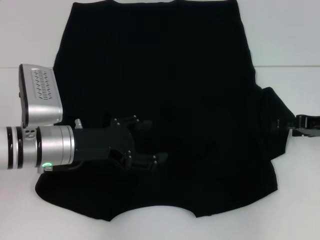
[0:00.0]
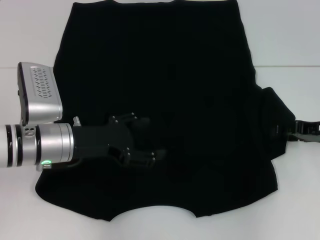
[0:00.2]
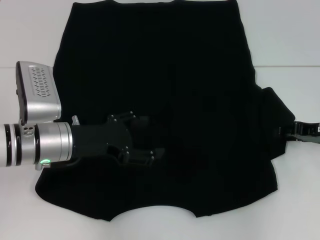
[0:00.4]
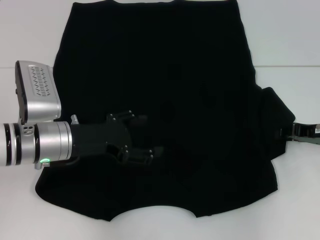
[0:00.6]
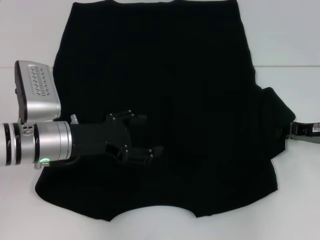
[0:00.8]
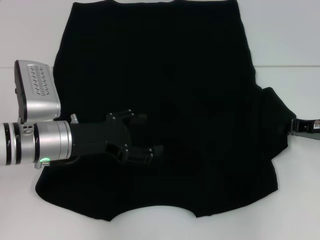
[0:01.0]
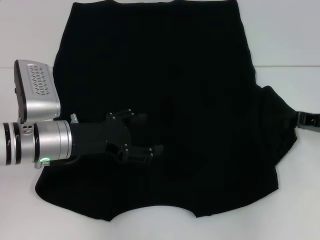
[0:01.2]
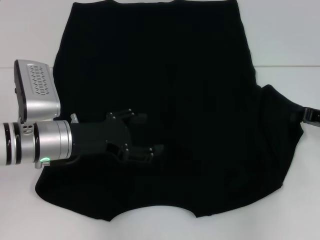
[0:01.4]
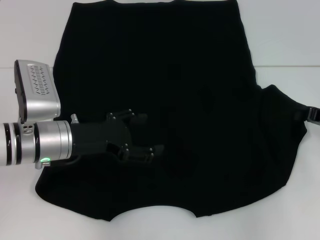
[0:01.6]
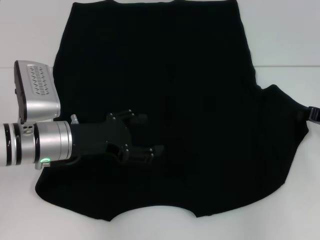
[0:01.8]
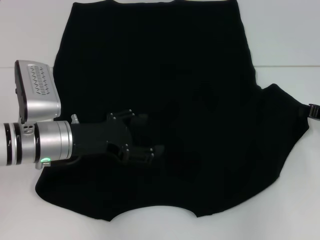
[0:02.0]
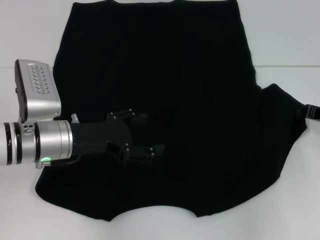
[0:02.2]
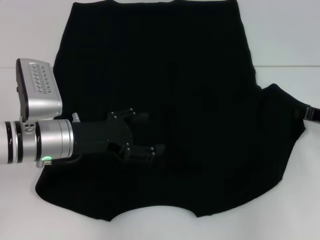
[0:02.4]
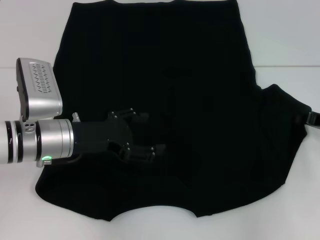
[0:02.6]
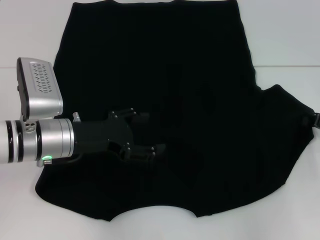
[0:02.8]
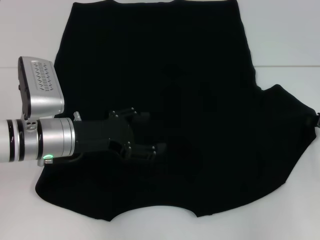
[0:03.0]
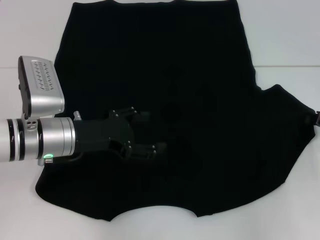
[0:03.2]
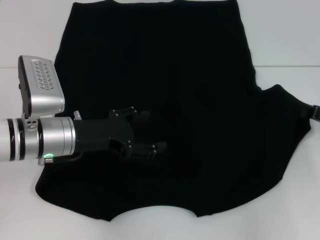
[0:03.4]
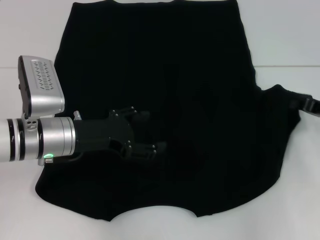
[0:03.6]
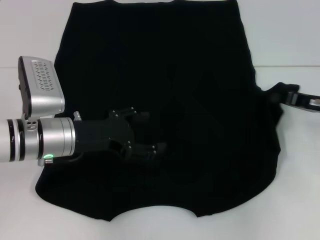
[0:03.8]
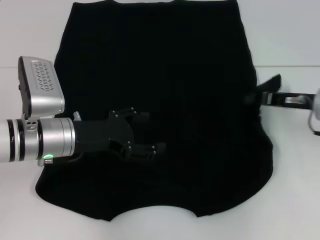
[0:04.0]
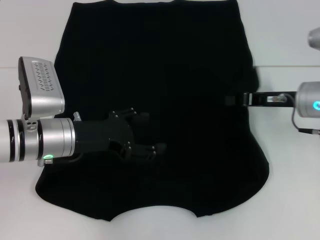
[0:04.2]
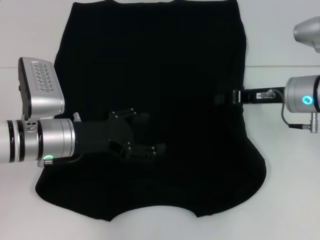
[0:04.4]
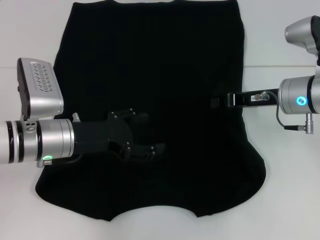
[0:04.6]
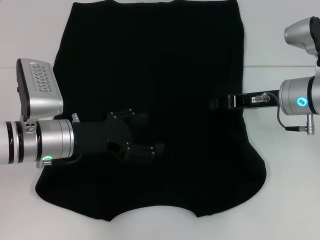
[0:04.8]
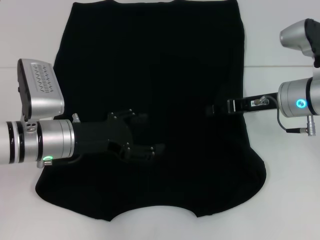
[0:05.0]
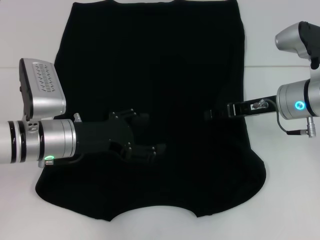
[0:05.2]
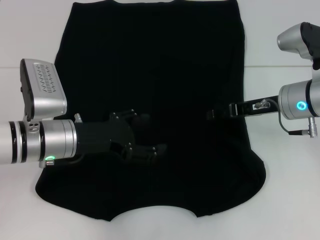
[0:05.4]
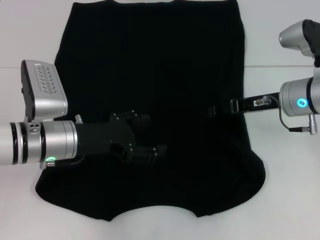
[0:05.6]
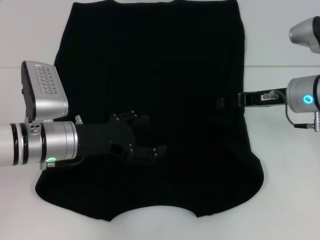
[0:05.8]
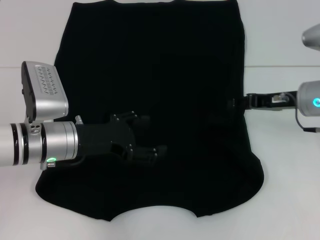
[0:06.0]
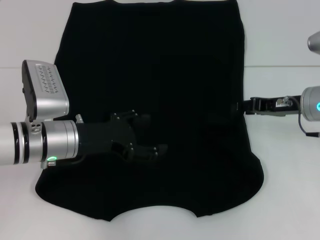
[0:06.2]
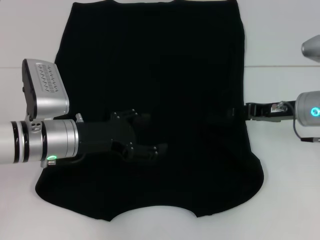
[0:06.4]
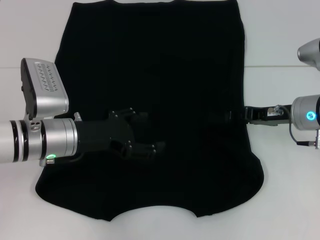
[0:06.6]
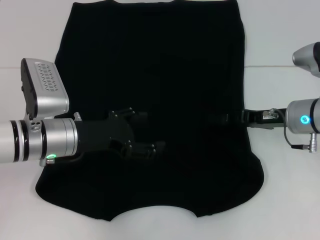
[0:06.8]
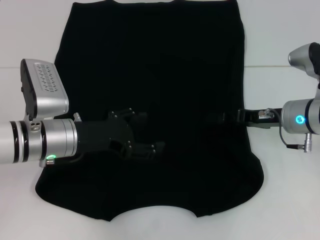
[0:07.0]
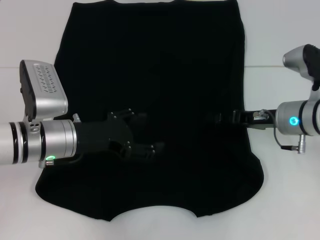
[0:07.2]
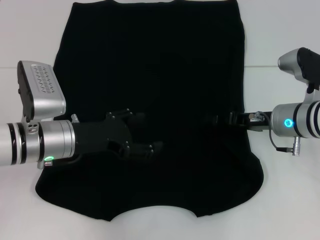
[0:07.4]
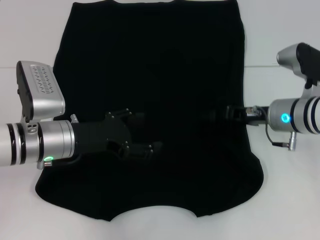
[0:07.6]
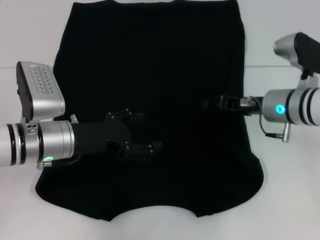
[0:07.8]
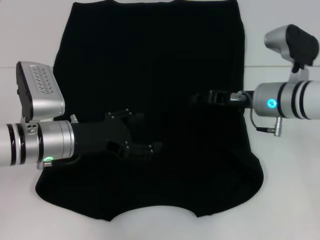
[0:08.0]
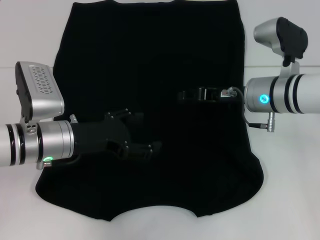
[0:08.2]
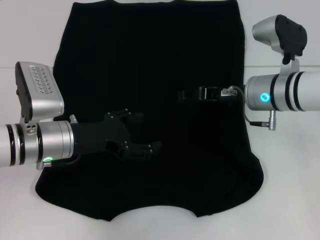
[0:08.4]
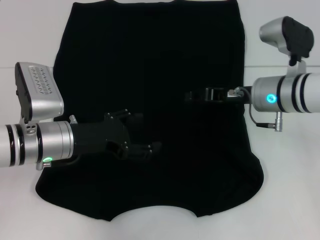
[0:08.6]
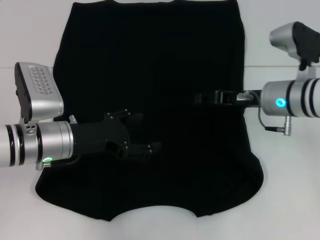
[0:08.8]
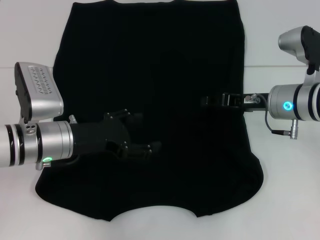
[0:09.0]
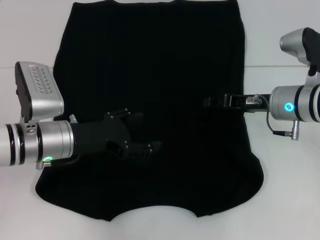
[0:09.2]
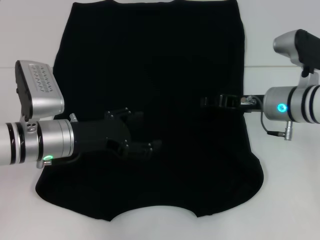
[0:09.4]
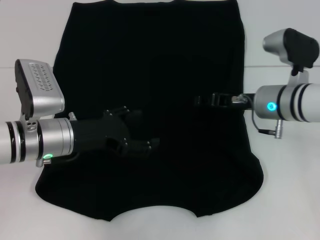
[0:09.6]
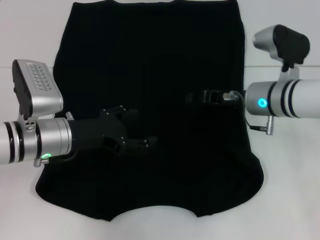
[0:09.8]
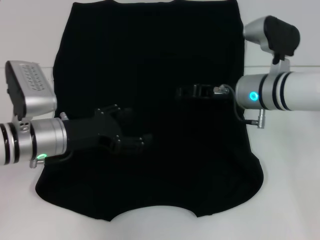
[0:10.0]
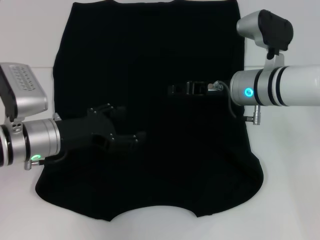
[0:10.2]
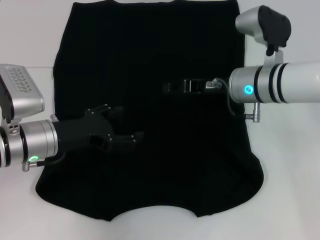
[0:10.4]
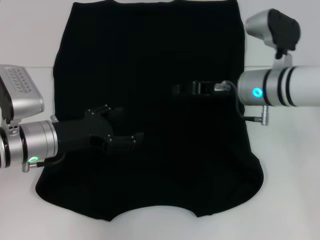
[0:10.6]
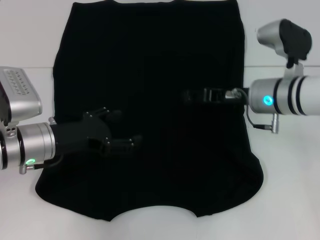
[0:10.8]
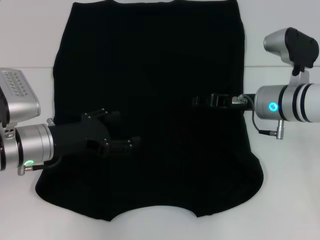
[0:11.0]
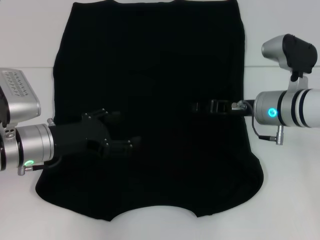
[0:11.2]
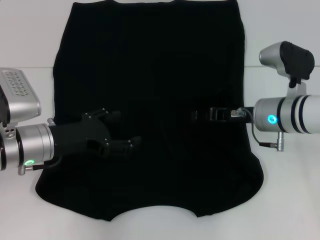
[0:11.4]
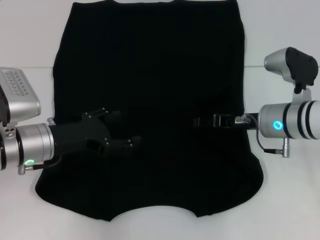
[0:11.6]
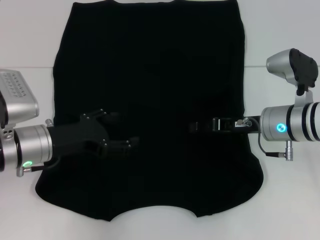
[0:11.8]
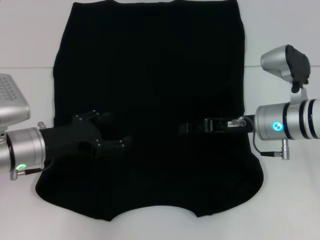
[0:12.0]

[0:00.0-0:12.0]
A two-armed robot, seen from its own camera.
Step, 0.0 to 6.0 s: Fold the bottom right sleeve with your right hand.
0.0 to 1.6 s: The right gripper closes.
1.6 to 3.0 s: The grippers stay close to where they were, moving slightly.
3.0 to 4.4 s: The right gripper moves to the left and upward, some 15 cm.
4.4 to 6.0 s: The right gripper opens up.
6.0 to 7.6 s: The right gripper changes place by some 5 cm.
7.6 to 9.0 s: The grippers move only a little.
9.0 to 10.4 s: The right gripper heads to the left, covering roughly 5 cm.
10.4 to 12.0 s: The right gripper shifts by approximately 5 cm.

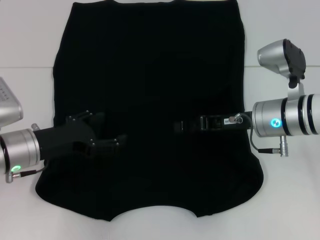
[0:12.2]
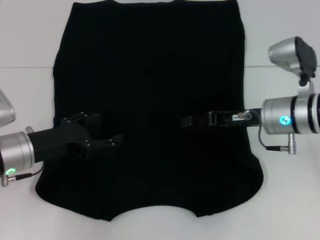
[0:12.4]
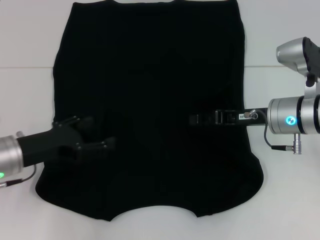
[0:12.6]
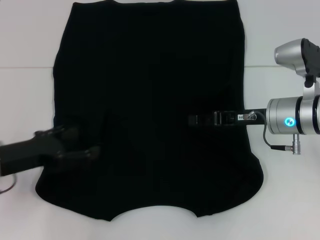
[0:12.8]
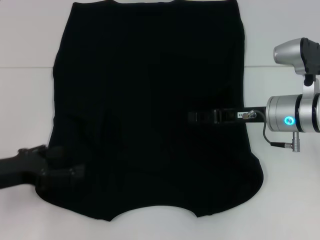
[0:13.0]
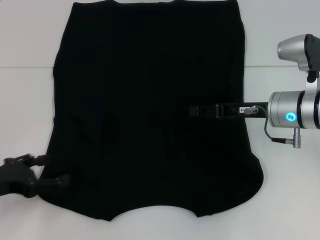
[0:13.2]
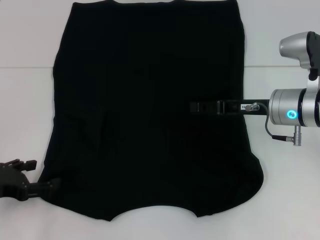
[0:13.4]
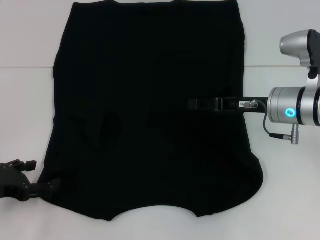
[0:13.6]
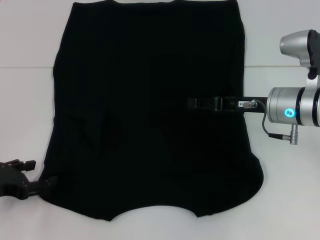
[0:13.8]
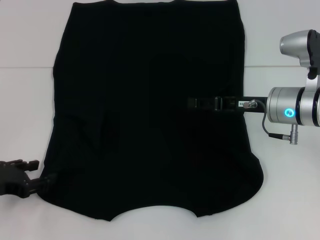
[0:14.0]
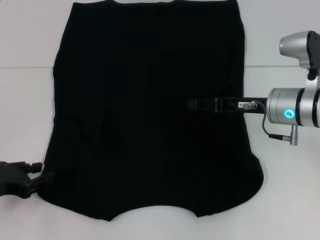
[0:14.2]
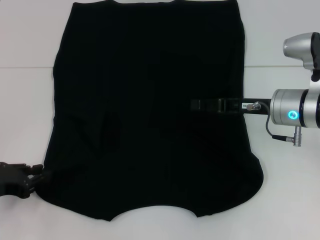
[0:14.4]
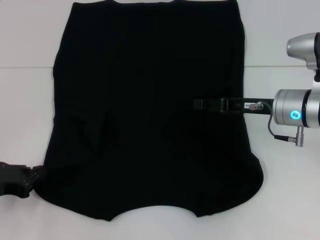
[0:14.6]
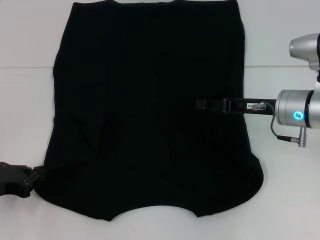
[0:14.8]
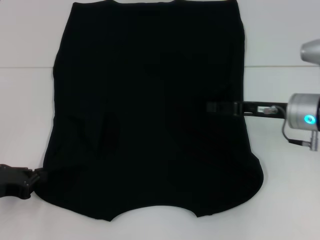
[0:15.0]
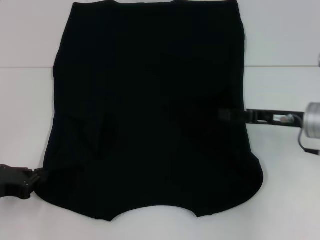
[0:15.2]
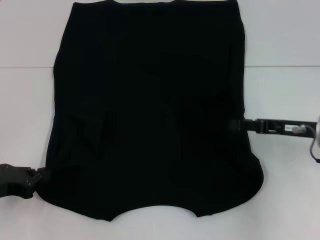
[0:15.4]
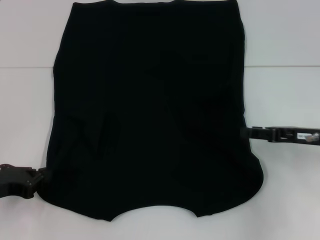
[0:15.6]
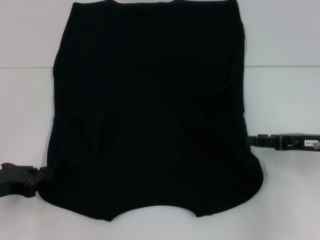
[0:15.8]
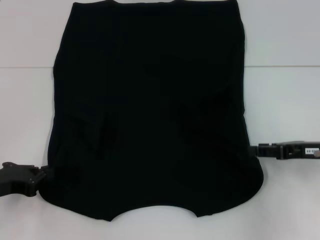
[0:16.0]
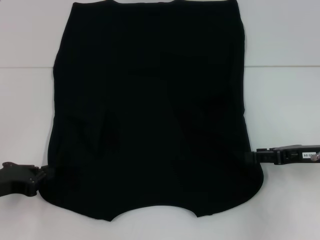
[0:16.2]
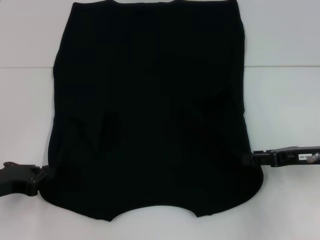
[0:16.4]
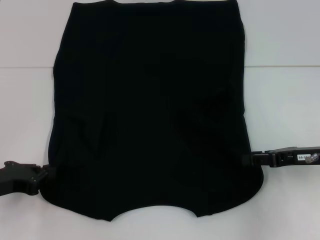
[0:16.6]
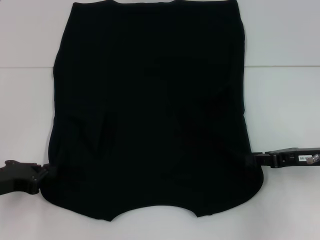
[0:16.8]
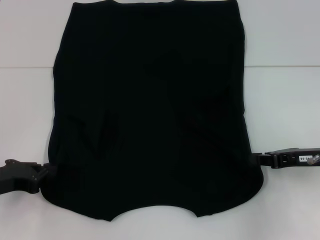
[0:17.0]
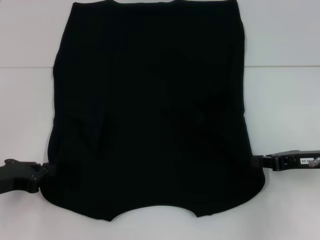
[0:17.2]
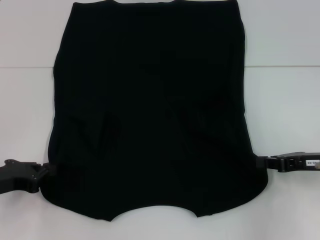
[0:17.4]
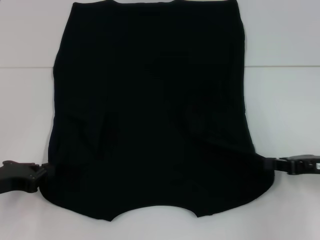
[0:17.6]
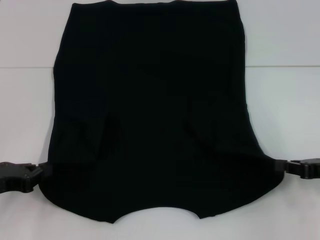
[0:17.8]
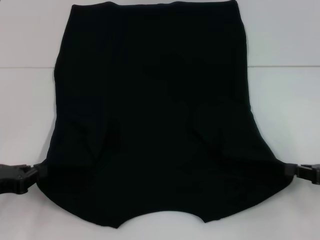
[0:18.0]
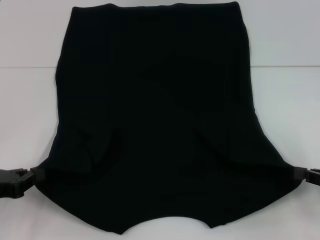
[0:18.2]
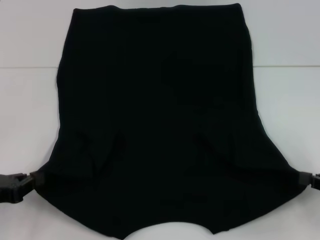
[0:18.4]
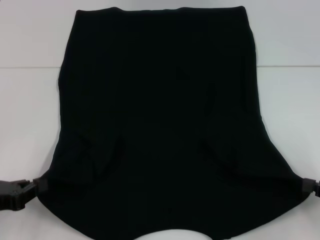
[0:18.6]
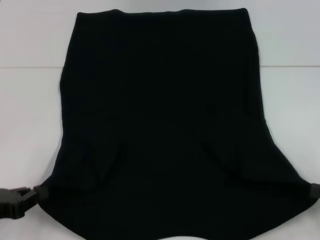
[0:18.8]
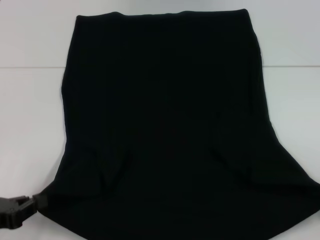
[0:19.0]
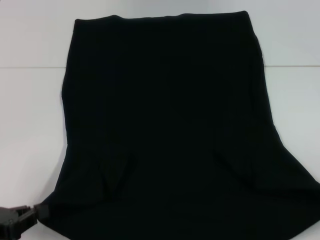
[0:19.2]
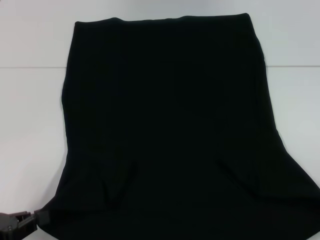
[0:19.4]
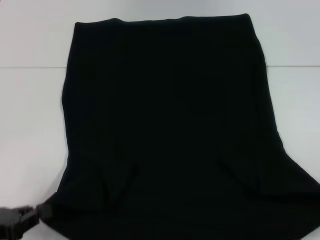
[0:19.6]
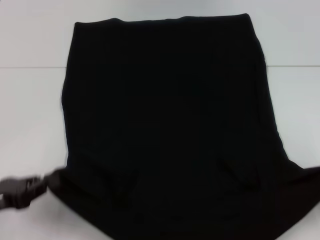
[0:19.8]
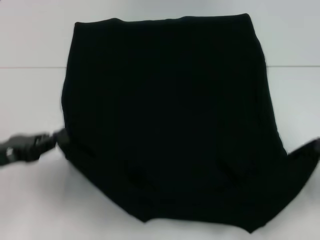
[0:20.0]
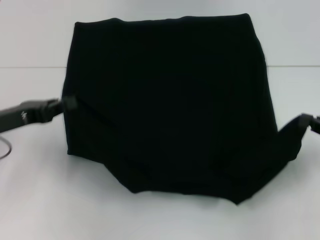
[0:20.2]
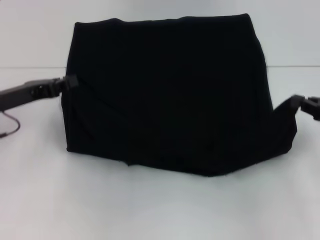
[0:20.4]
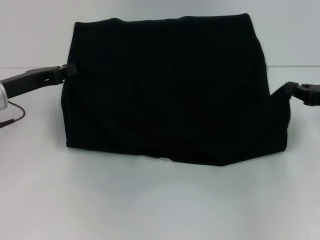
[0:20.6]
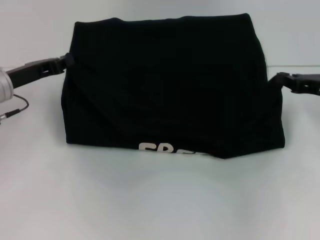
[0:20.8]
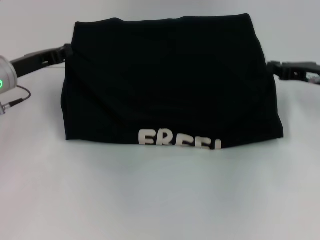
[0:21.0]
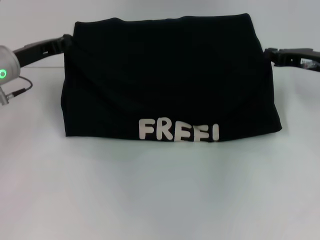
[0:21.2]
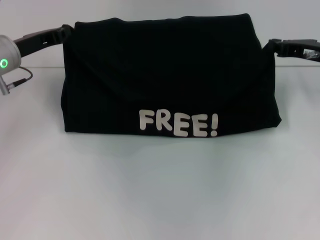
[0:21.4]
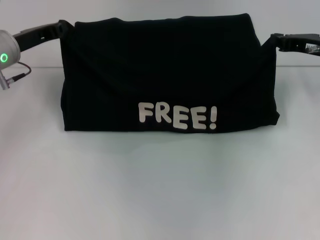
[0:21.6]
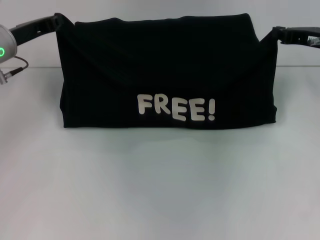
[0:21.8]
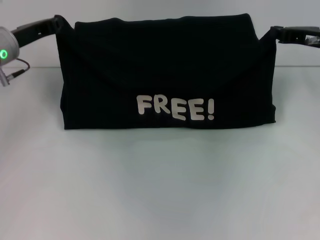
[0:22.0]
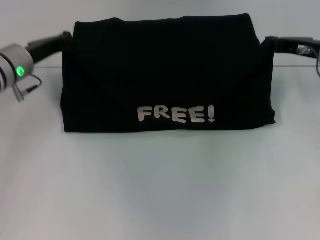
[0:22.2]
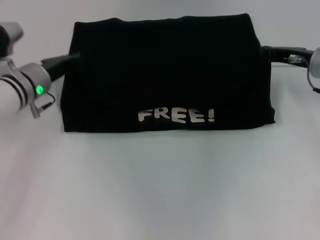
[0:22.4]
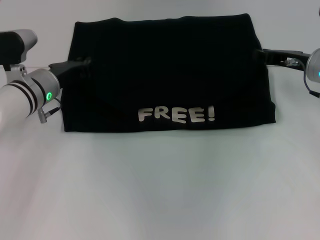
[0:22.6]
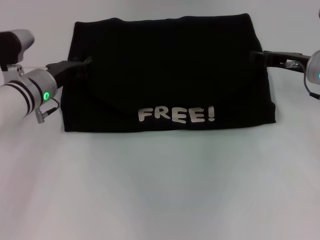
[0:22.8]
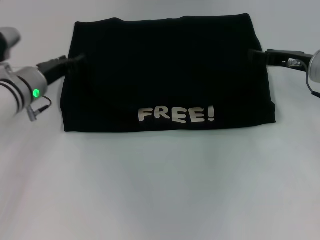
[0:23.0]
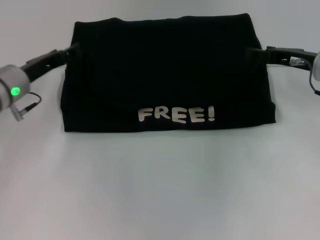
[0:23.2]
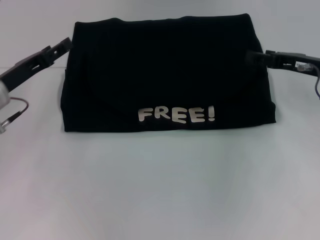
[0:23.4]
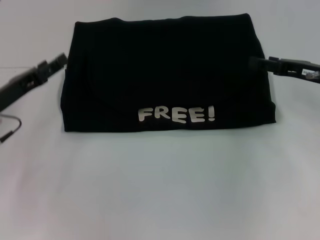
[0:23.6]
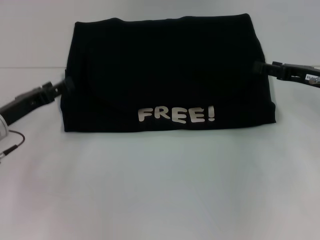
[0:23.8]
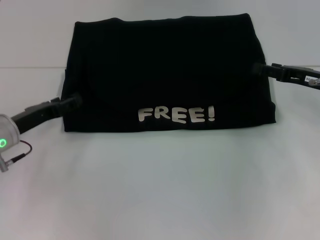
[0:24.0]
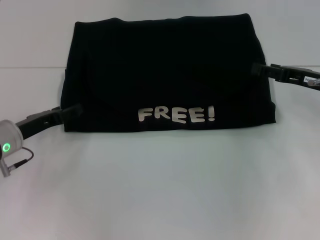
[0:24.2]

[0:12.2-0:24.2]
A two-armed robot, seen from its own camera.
Step, 12.2 to 18.8 s: Grab the bottom left corner with your left hand.
Step, 12.2 to 18.8 s: Grab the bottom right corner with your right hand.
Step, 19.0 to 23.8 s: Fold the clothes with your left hand.
Step, 19.0 to 23.8 s: Fold the clothes with your right hand.
12.2 to 13.8 s: The left gripper heads to the left and backward, covering about 10 cm.
13.8 to 15.2 s: The left gripper closes its fingers. Meanwhile the right gripper heads to the right, covering about 5 cm.
15.2 to 16.6 s: The right gripper ends up approximately 5 cm from where it was.
16.6 to 18.2 s: The right gripper travels to the right and backward by approximately 10 cm, and closes its fingers.
18.2 to 19.8 s: The right gripper shifts by roughly 5 cm.
19.8 to 21.2 s: The left gripper shifts some 20 cm forward; the right gripper travels forward and to the left by roughly 25 cm.
21.2 to 22.6 s: The left gripper moves to the right, approximately 5 cm.
22.6 to 24.2 s: The right gripper moves some 5 cm, and opens its fingers. Meanwhile the left gripper shifts about 10 cm backward and to the left, and opens its fingers.
